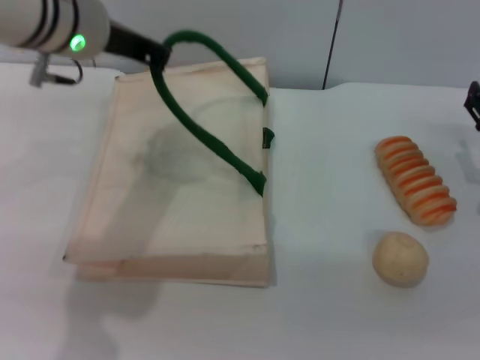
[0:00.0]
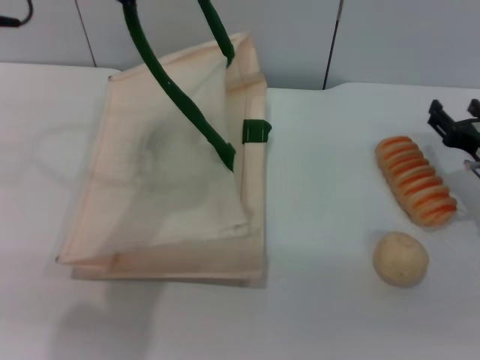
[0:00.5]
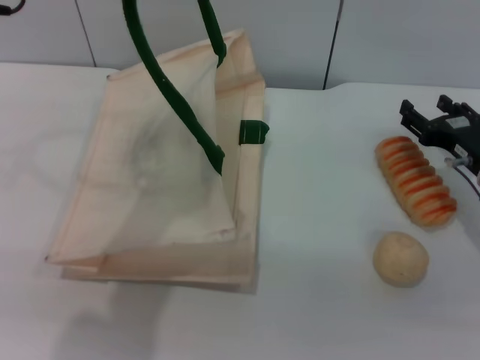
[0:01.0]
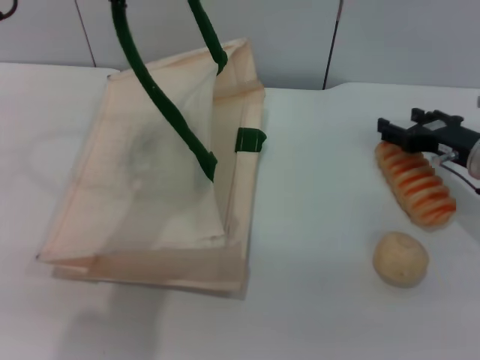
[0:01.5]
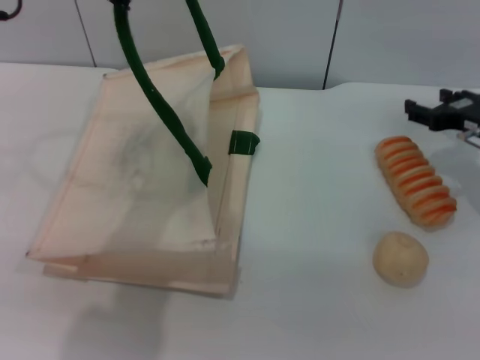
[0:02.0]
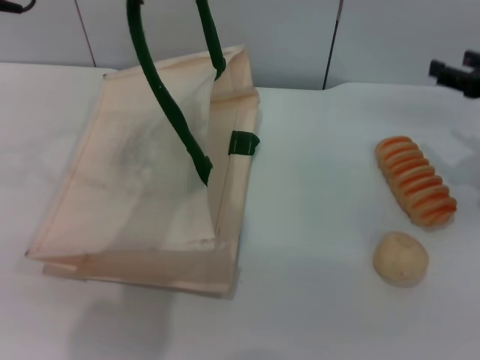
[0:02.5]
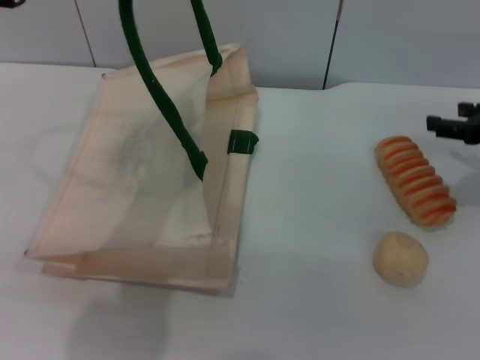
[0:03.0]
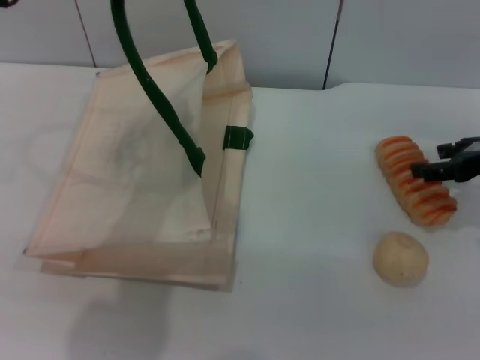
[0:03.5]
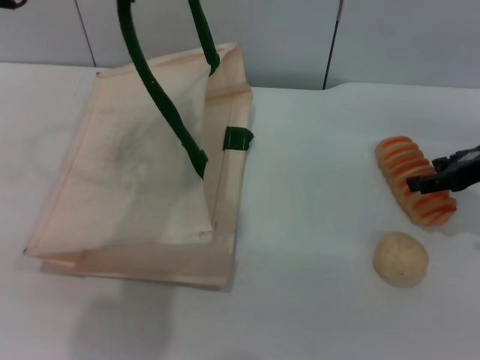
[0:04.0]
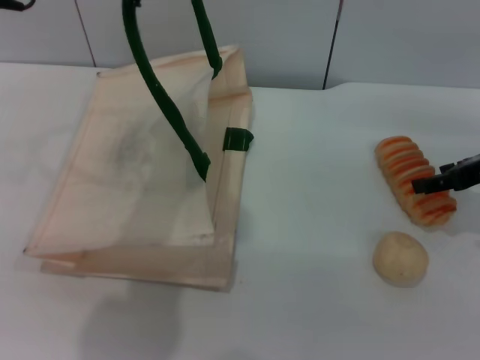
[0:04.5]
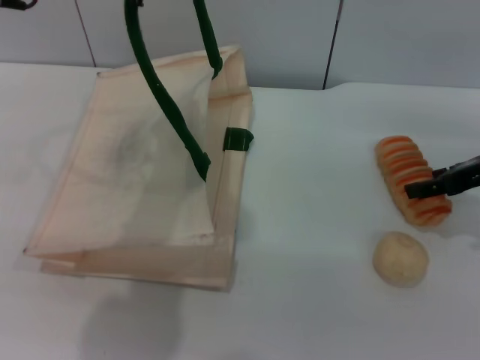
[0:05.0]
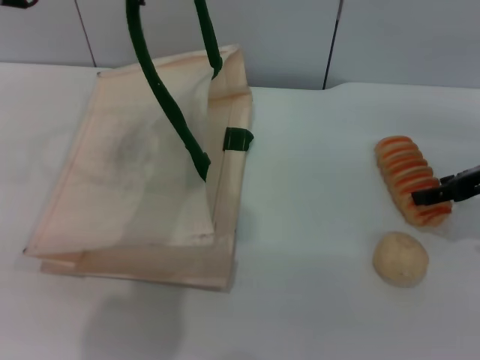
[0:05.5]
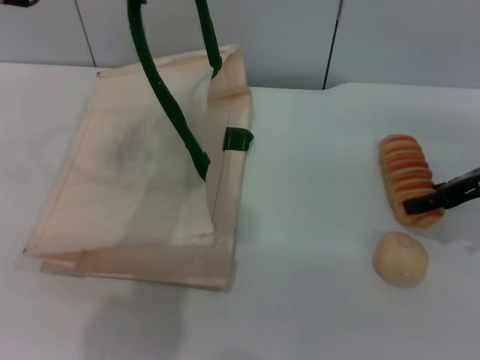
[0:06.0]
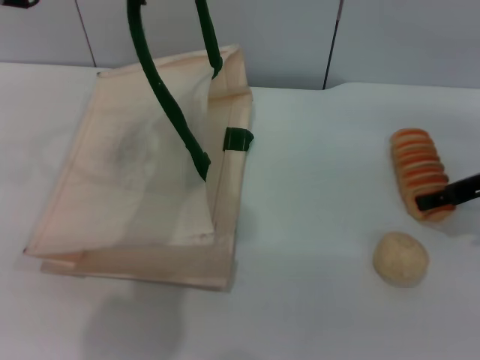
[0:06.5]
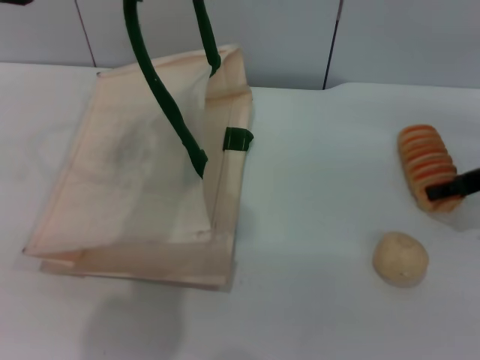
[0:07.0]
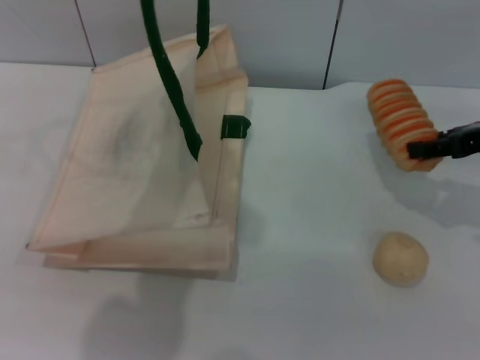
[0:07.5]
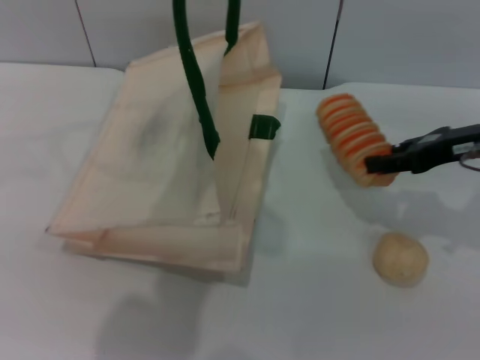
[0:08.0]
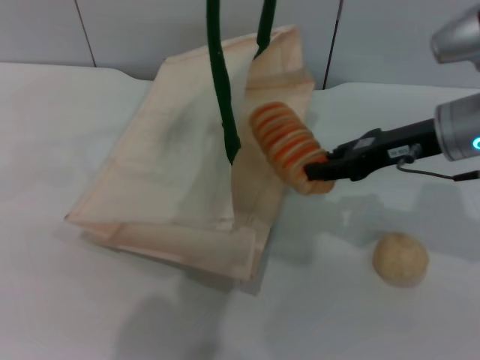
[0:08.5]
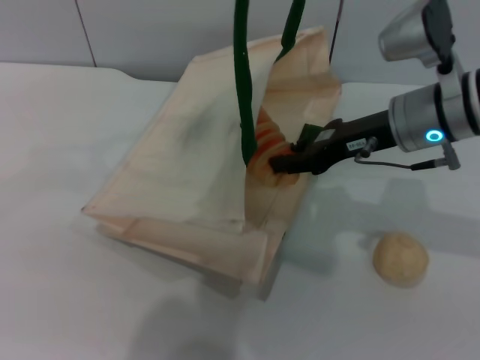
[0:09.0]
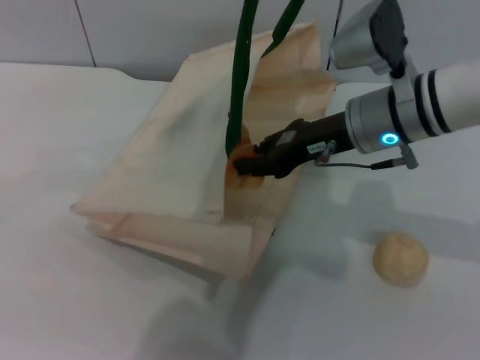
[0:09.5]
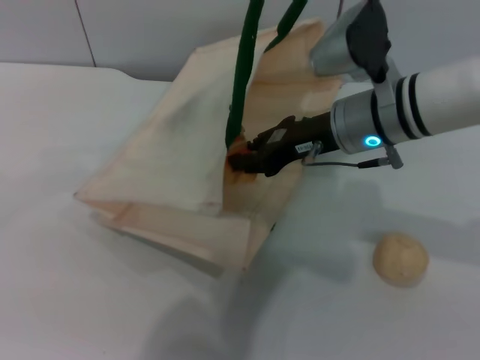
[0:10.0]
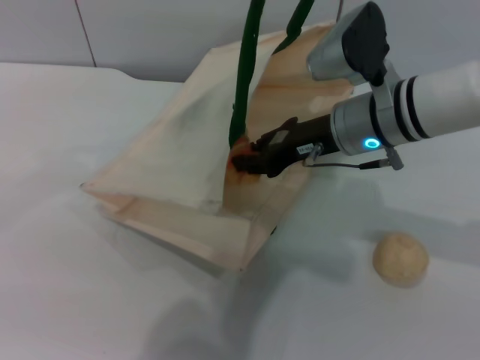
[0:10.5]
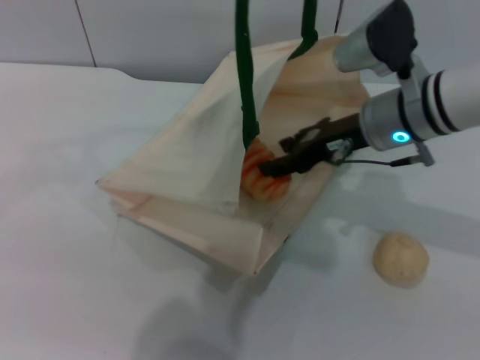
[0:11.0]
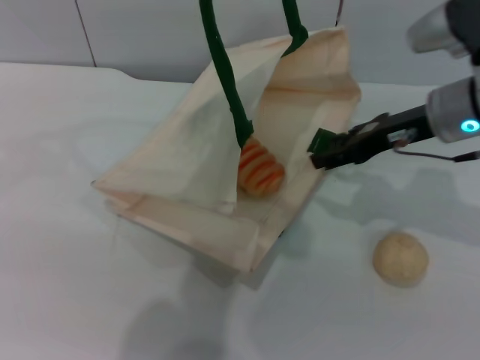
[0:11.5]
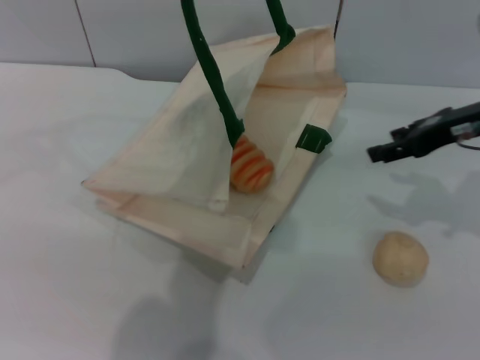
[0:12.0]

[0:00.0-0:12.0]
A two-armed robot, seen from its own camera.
Task of the whole recording: pick up the bread and egg yolk pastry from the table and place it in the white handbag.
Step, 0.0 to 7.5 s: Pick up the bread with the right gripper.
0.0 to 2.0 s: The right gripper moves forward, about 5 cm. Meanwhile the left gripper goes approximately 10 cm upward and backward.
2.0 to 4.0 s: The right gripper changes place by some 5 cm.
4.0 to 6.0 s: The grippers move only a little.
6.0 to 8.0 s: The right gripper closes up.
8.0 to 10.0 s: The right gripper moves to the left, approximately 15 cm. The left gripper moves to the right, approximately 5 cm.
10.0 to 12.0 s: The right gripper heads to the right, covering some 15 cm, and opens its fingers, while the left gripper goes about 5 cm to the left.

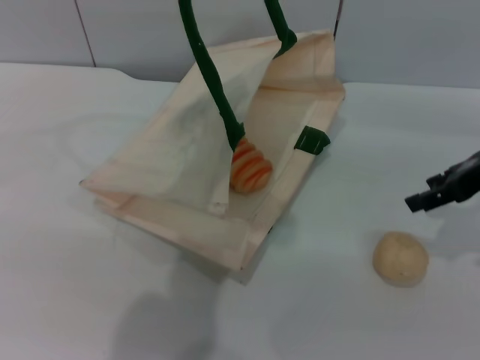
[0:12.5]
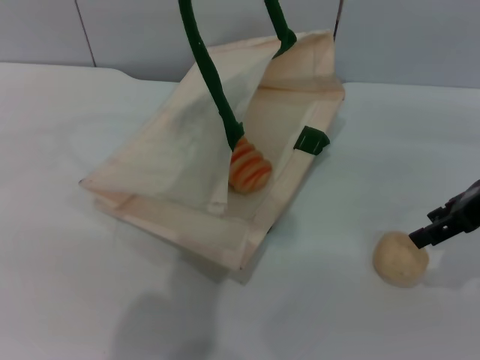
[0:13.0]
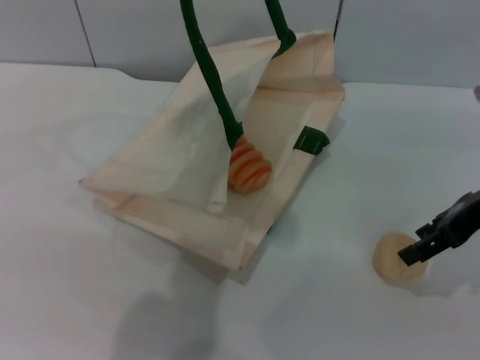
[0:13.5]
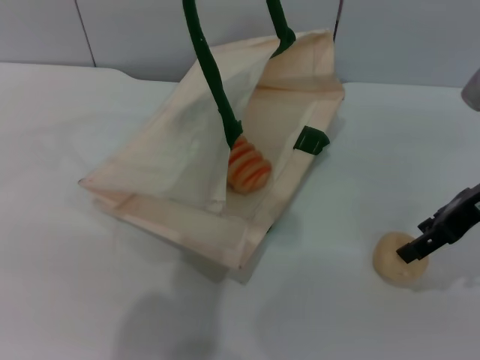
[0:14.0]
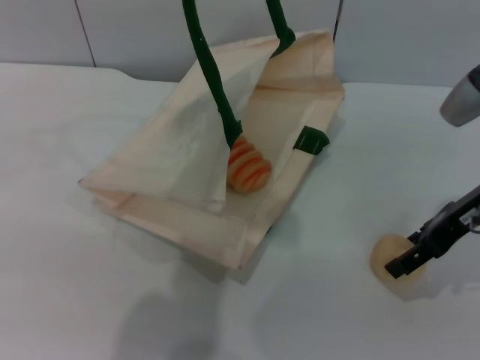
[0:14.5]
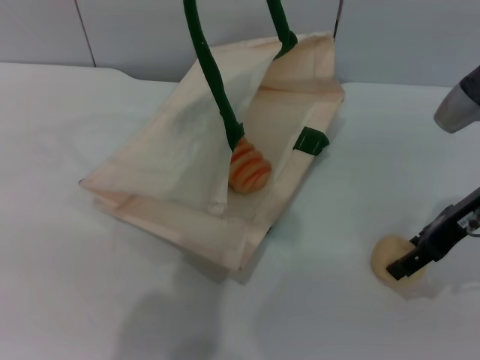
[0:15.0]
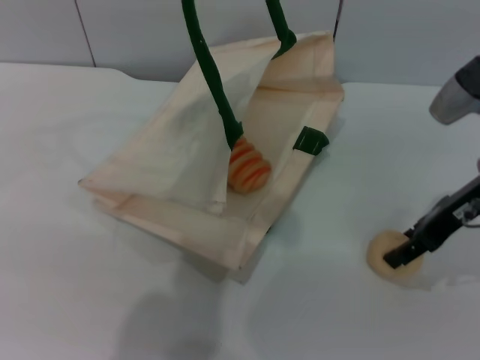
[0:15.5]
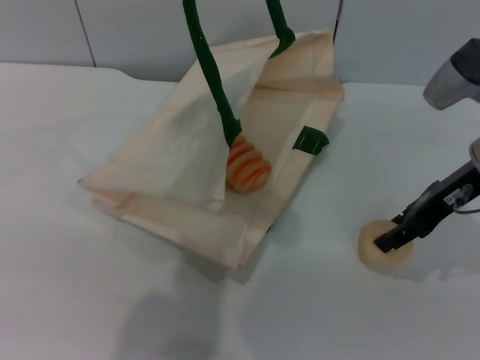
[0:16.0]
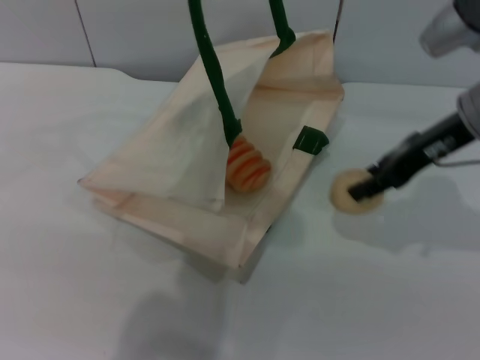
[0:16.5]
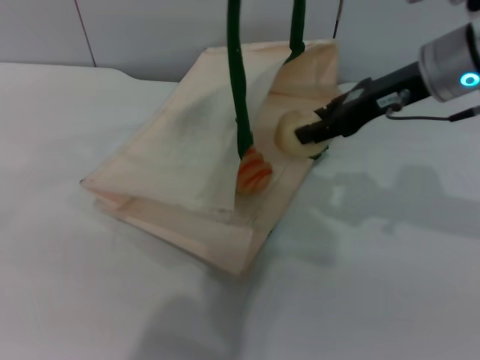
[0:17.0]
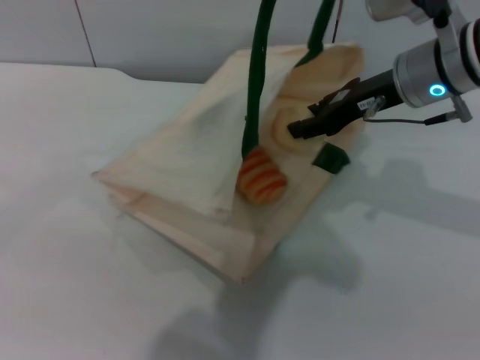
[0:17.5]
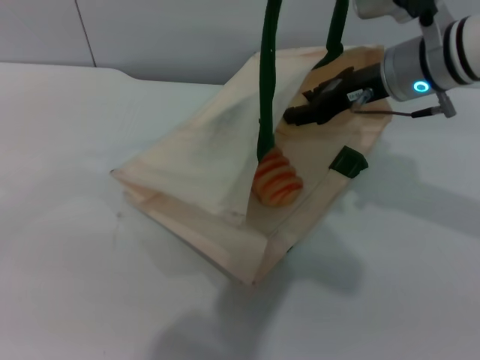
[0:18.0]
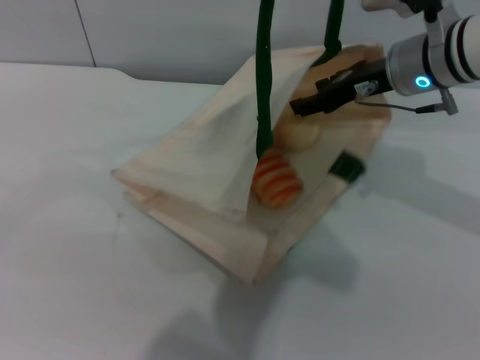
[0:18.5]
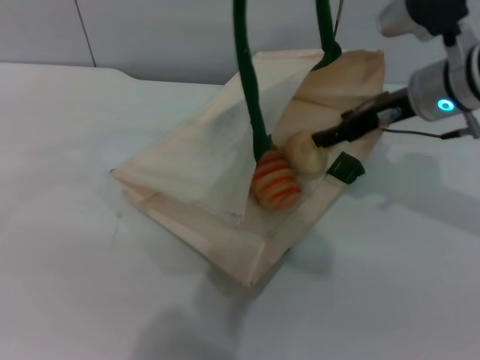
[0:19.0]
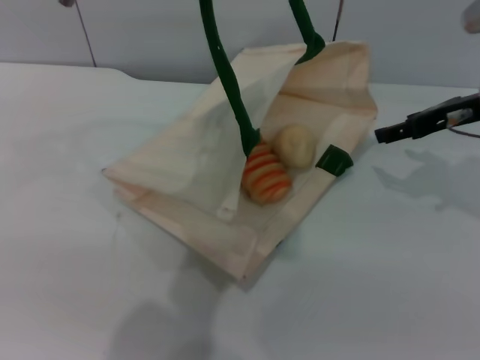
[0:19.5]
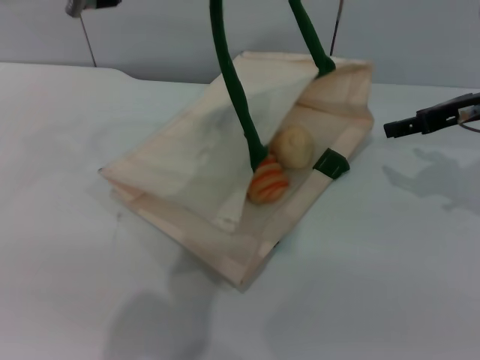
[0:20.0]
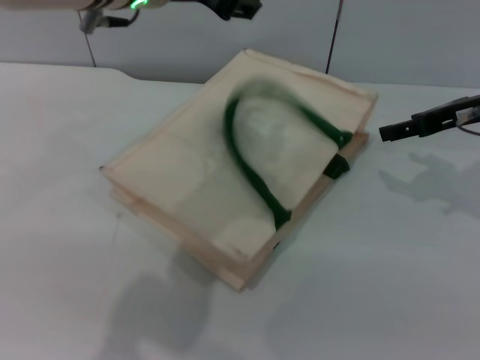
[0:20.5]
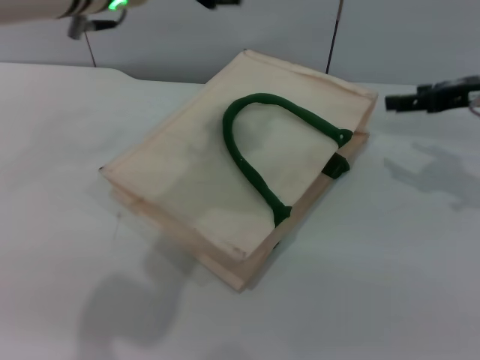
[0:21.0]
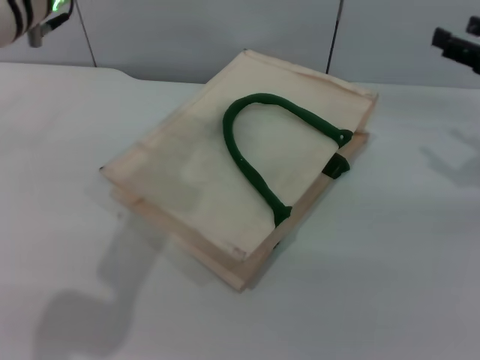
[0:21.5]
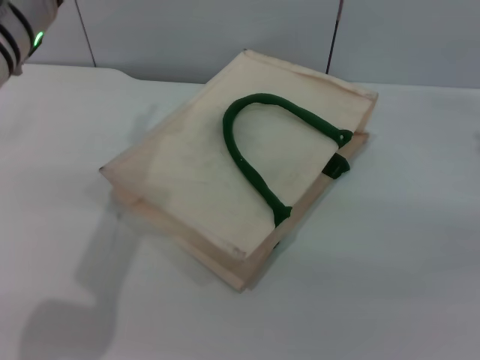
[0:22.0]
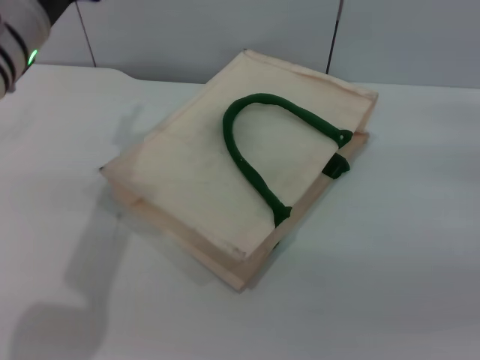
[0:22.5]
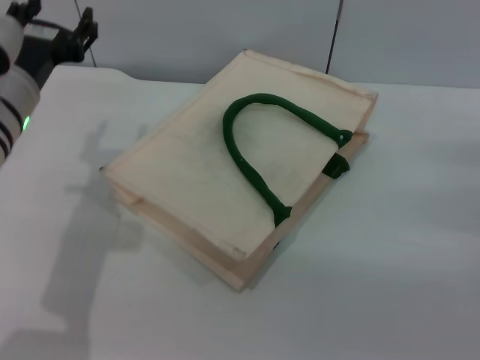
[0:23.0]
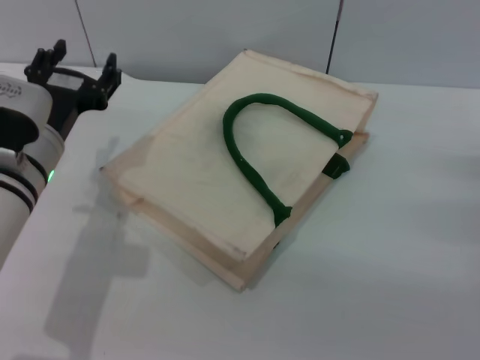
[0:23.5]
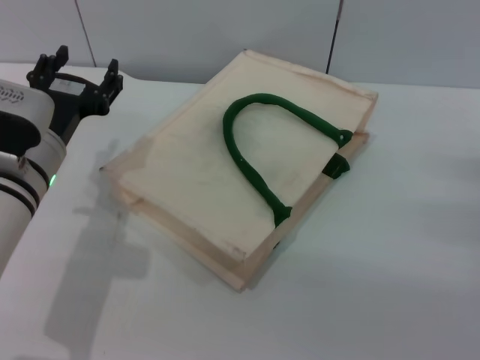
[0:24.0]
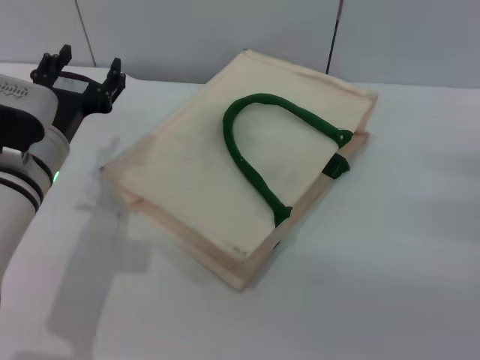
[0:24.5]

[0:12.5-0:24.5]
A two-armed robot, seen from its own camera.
Task of the whole recording: pick up the bread and egg yolk pastry from the table and place it in the white handbag.
Step, 12.5 to 16.5 s: Pick up the egg yolk pastry with the right gripper.
Step, 17.0 to 19.0 s: Place the egg yolk pastry into the woven bag with the right gripper.
12.5 to 14.5 s: The grippers stay close to where they were, moving slightly.
14.5 to 16.5 s: The right gripper ends up approximately 5 cm from where it was, and closes.
16.5 to 18.5 s: The left gripper moves roughly 5 cm. The right gripper is displaced to the left by some 5 cm.
18.5 to 20.5 s: The right gripper travels to the right by roughly 10 cm, and opens; the left gripper heads downward, covering some 5 cm, and opens.
20.5 to 22.5 s: The left gripper shifts some 15 cm to the left and downward; the right gripper is displaced to the right, backward and downward by about 15 cm.
22.5 to 24.5 s: The left gripper shifts approximately 10 cm downward.

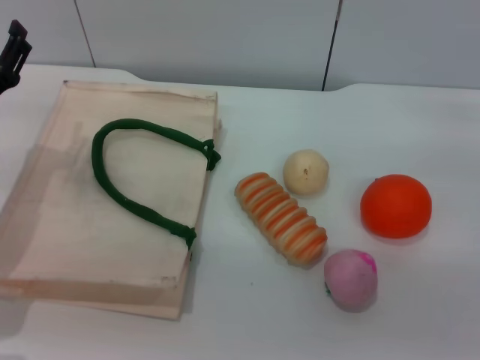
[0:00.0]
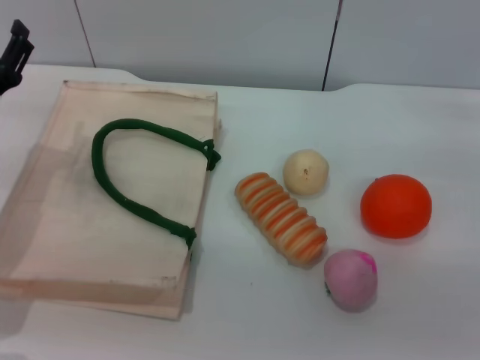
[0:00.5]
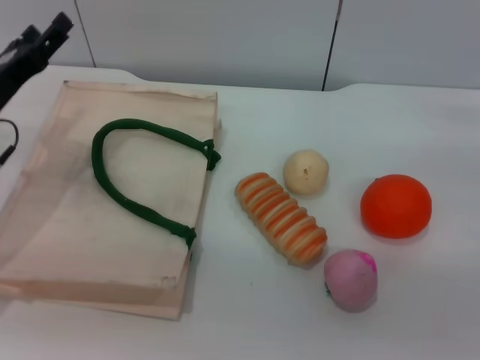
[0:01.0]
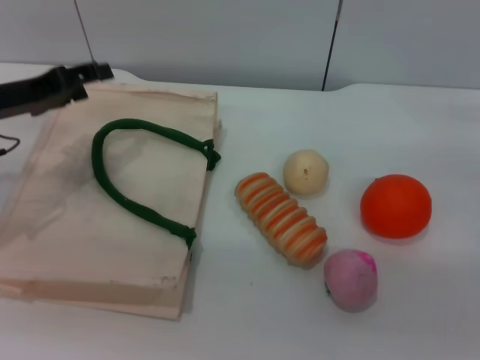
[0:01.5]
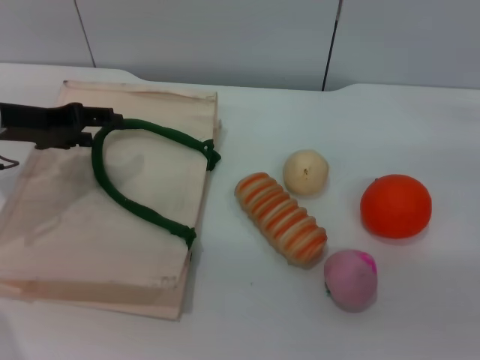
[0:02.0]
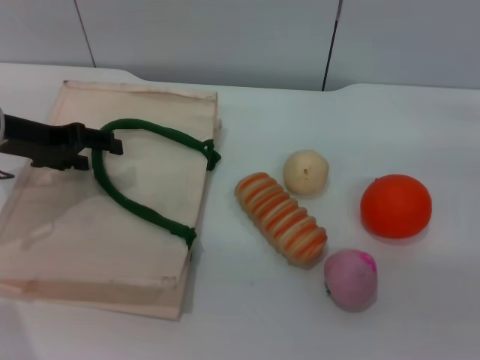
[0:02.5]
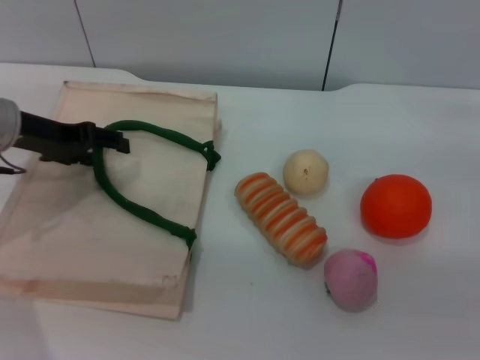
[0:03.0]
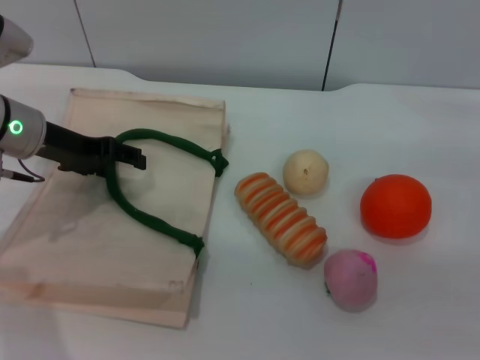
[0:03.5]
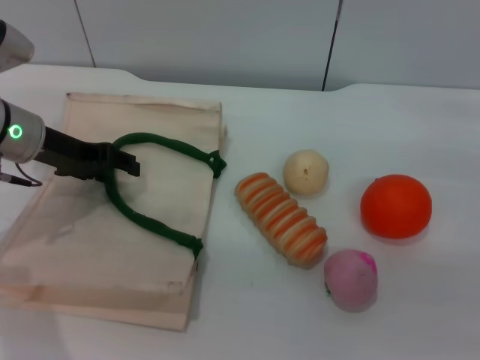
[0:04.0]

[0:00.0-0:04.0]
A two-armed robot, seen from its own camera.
Task of the whole recording: pick up the bread and egg yolk pastry from the table and place it in the white handbag.
0.0 to 2.0 s: The left gripper travels upward and forward by some 10 cm.
2.0 to 4.0 s: The grippers make only small movements.
